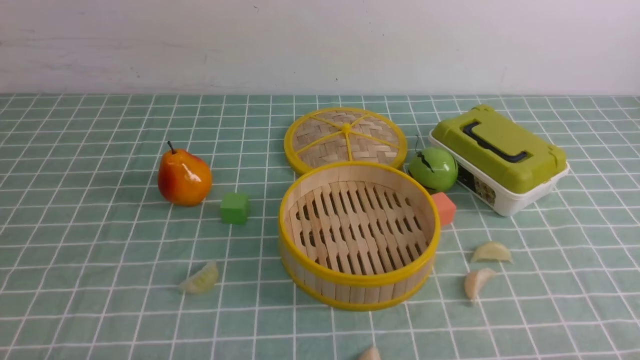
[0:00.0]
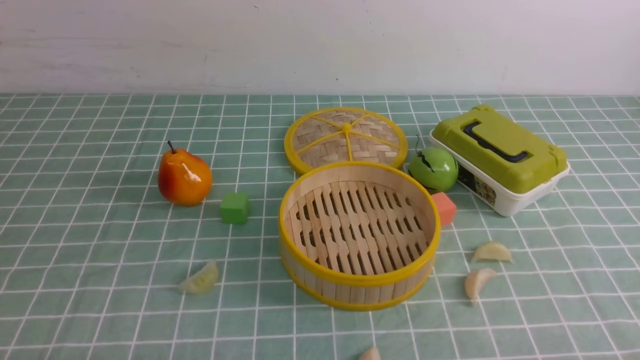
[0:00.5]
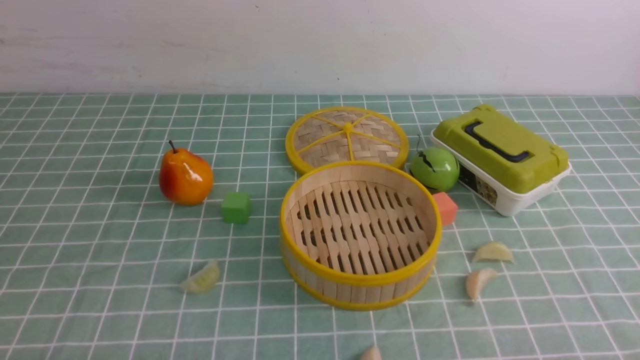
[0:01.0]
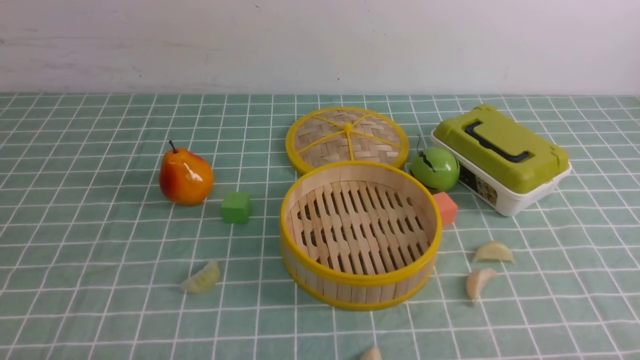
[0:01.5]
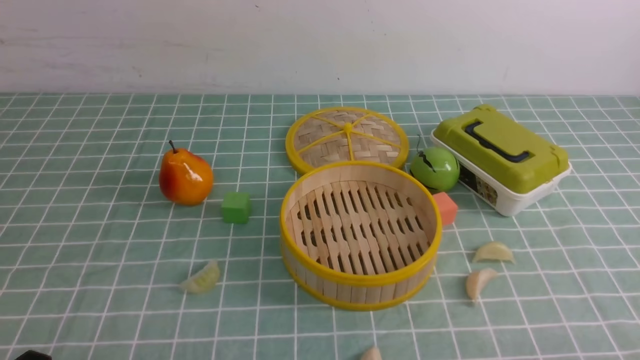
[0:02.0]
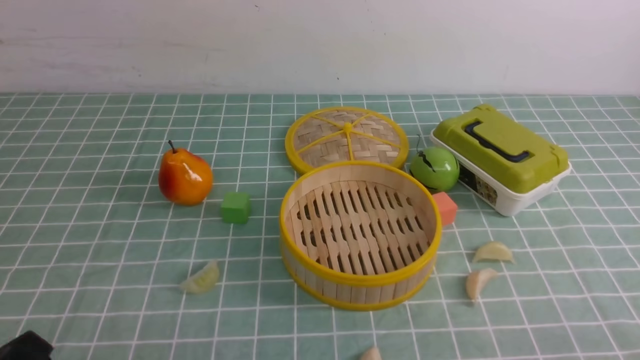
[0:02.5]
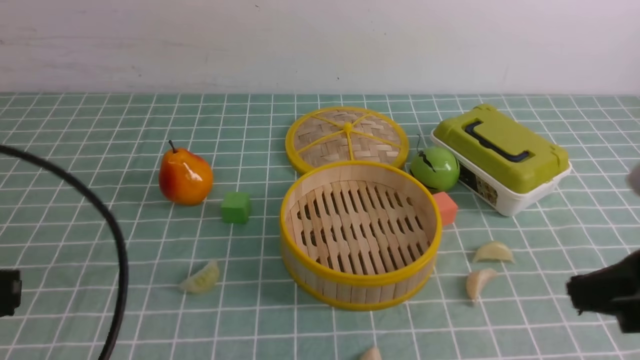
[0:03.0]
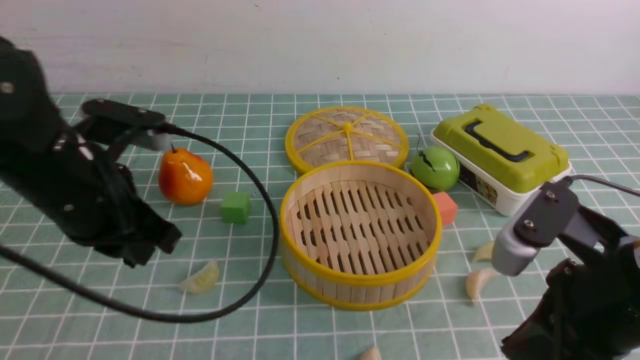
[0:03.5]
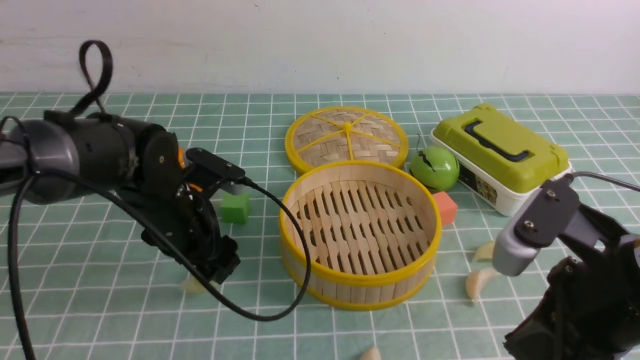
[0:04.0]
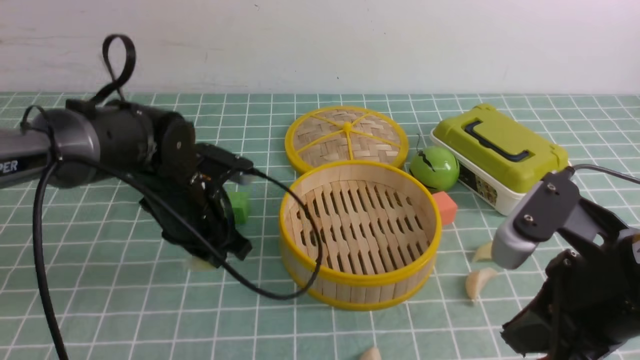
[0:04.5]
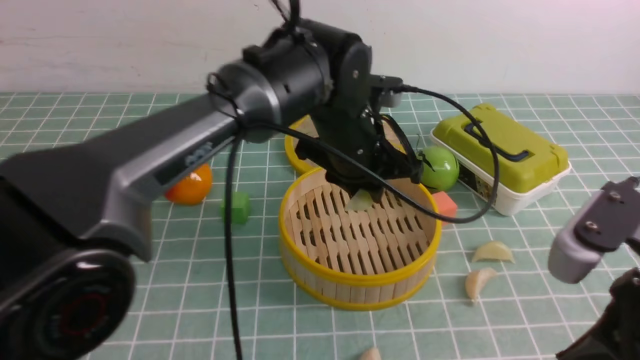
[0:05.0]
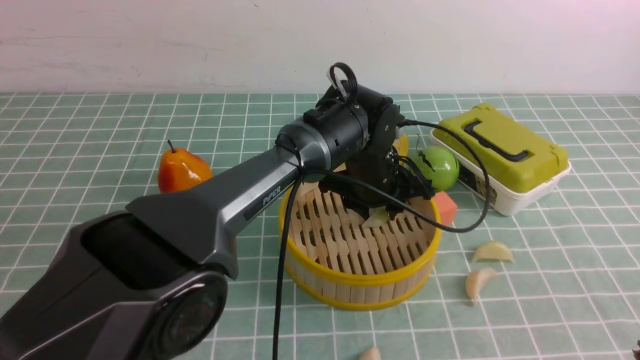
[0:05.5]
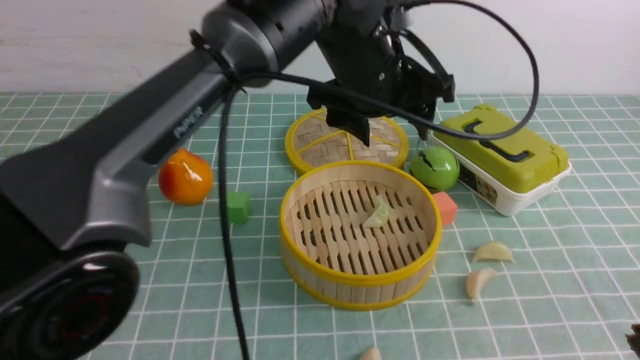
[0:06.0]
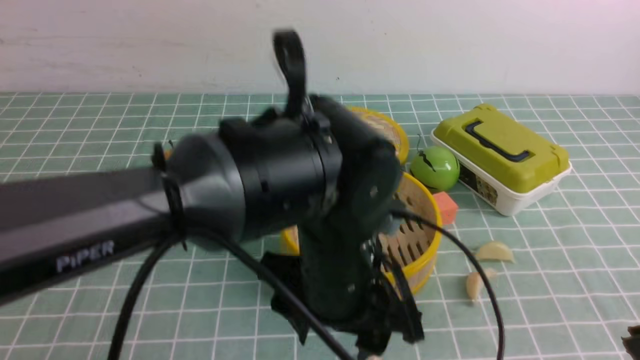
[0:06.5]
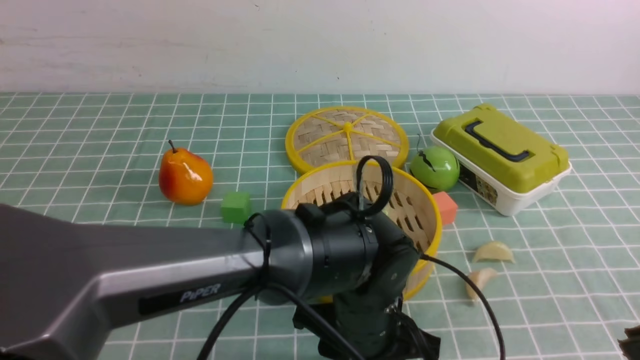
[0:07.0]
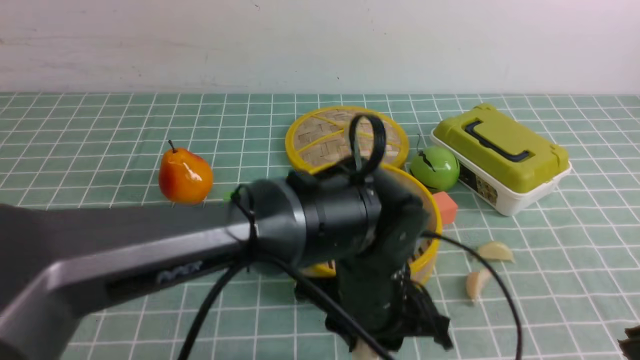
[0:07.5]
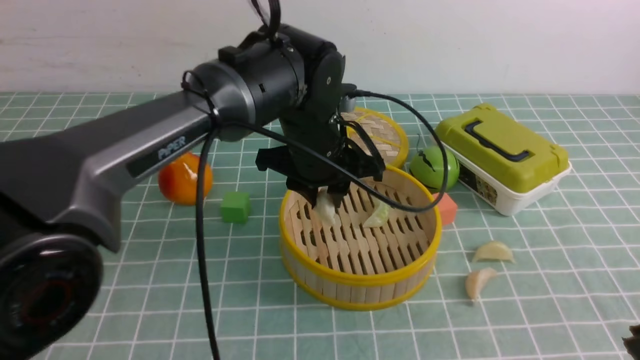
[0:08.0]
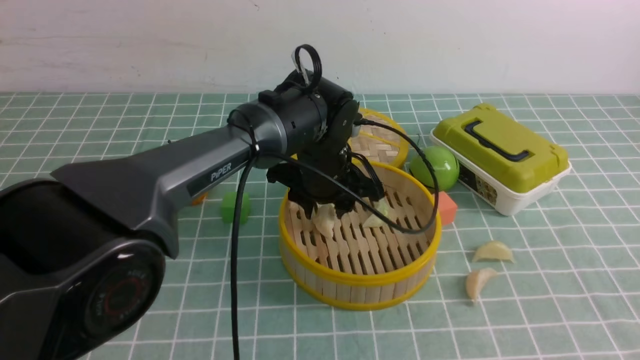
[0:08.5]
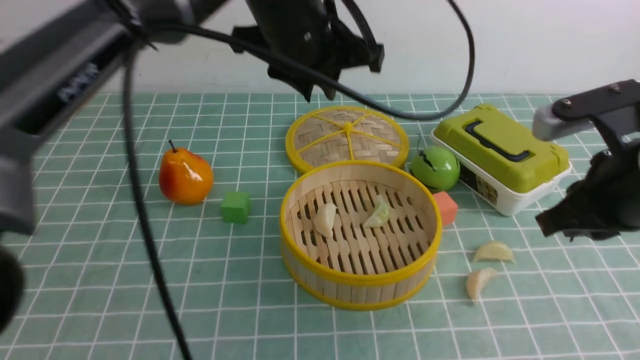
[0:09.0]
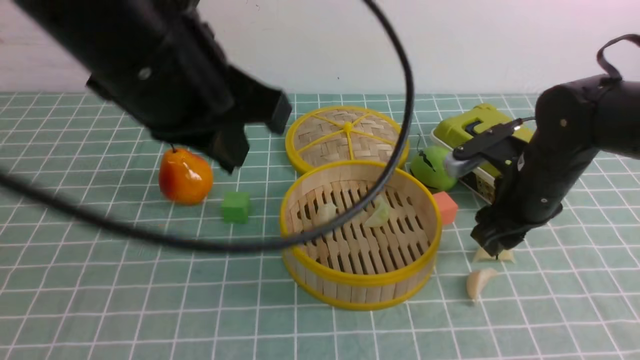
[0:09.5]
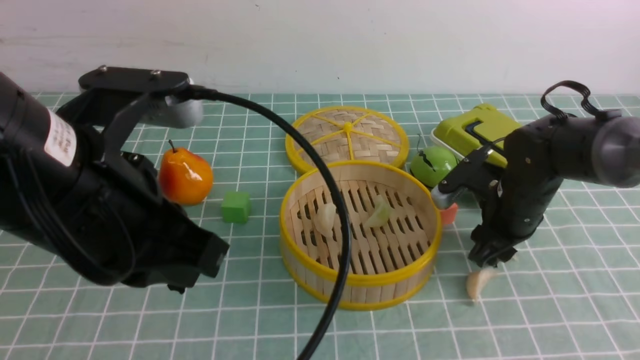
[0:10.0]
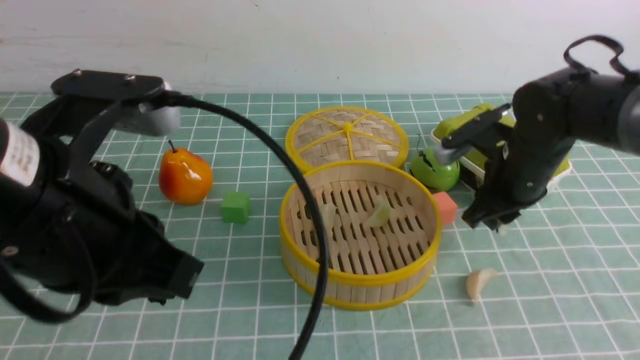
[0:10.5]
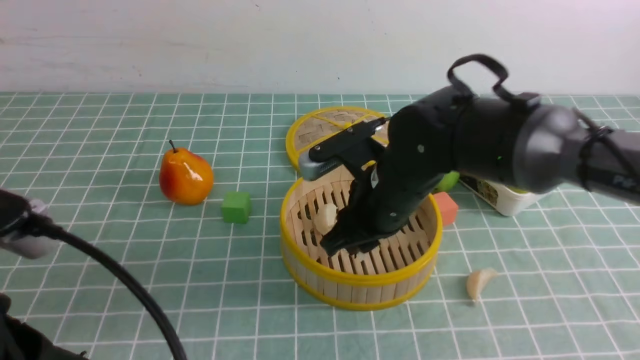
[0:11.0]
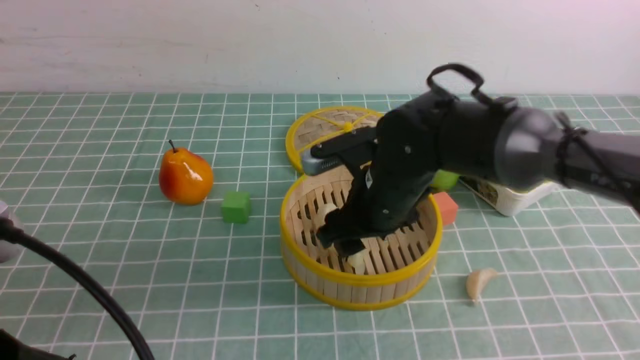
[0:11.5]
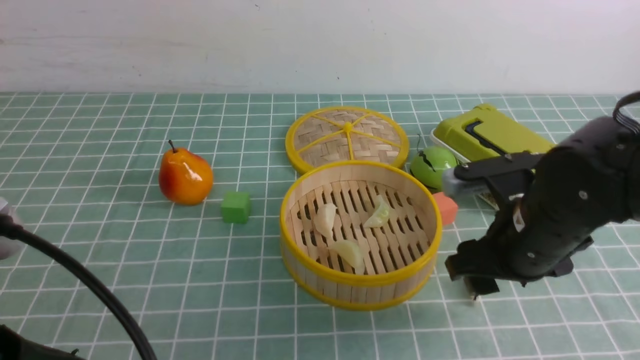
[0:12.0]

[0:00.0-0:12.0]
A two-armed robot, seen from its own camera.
Task of the whole recording: put the dumplings into the steamer on the table with the blue tablecloth.
Step, 0:00.0 to 0:04.5: use the left arm to grab a dumpling.
Step, 0:05.0 to 0:05.5: use the left arm to put the dumpling into the steamer.
Step, 0:06.0 to 0:07.5: use the left arm to grab a dumpling.
Step, 0:08.0 to 0:08.5: use the left arm to put the dumpling into the steamer.
Step, 0:09.0 to 0:10.5: use the right arm to grab a dumpling.
Step, 0:11.0 to 0:11.5: use the right arm to put the dumpling into the steamer.
0:02.0 to 0:04.0: The right gripper travels forward, upward and to the left by about 20 cm, and closes up; the left gripper is displaced forward by roughly 30 cm, and opens up.
0:04.0 to 0:06.0: The right gripper travels backward and upward by about 10 cm, while the left gripper heads to the right and upward, covering about 25 cm, and closes, then reopens.
0:06.0 to 0:08.0: The left gripper shifts some 10 cm downward, and closes up.
0:08.0 to 0:10.0: The left gripper moves backward, to the left and upward, approximately 30 cm, and closes up. The right gripper heads forward and downward, covering approximately 35 cm, and opens.
0:10.0 to 0:12.0: The right gripper shifts roughly 10 cm backward and upward, and travels to the left and back again, about 15 cm each way. Meanwhile the left gripper shifts about 10 cm backward and to the left.

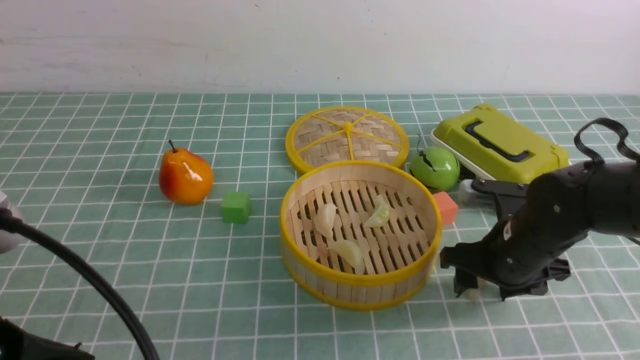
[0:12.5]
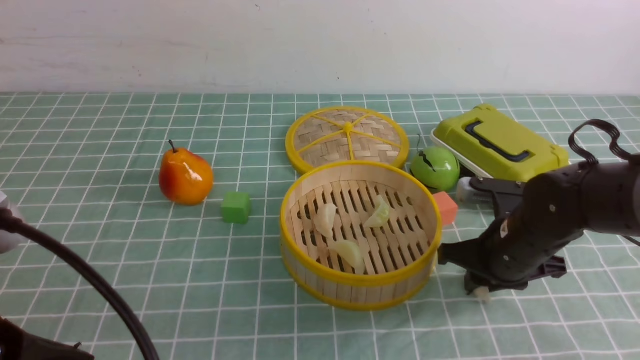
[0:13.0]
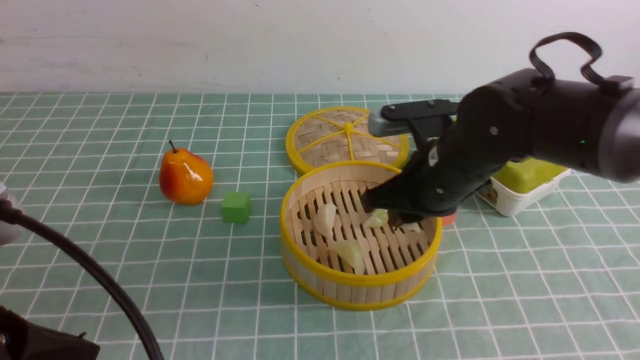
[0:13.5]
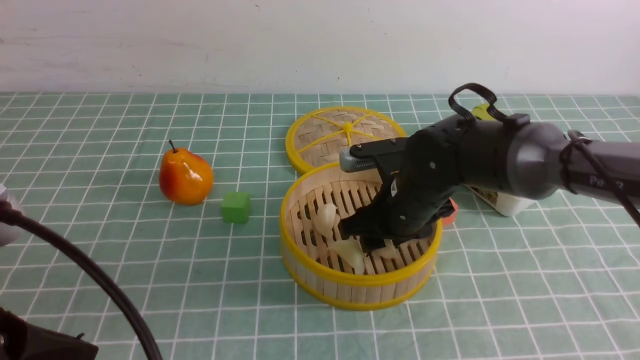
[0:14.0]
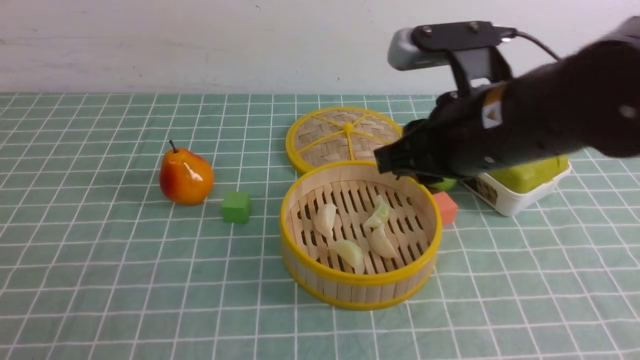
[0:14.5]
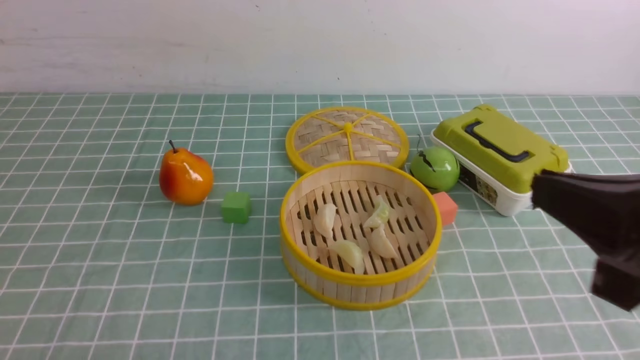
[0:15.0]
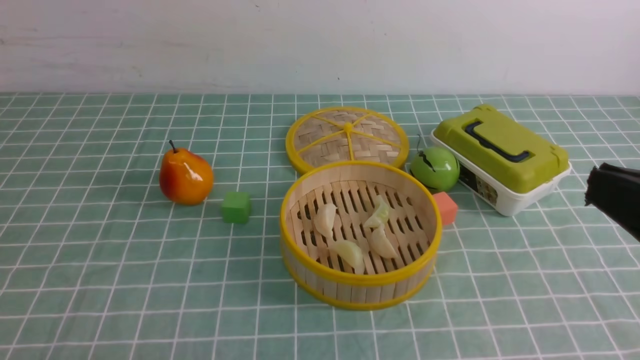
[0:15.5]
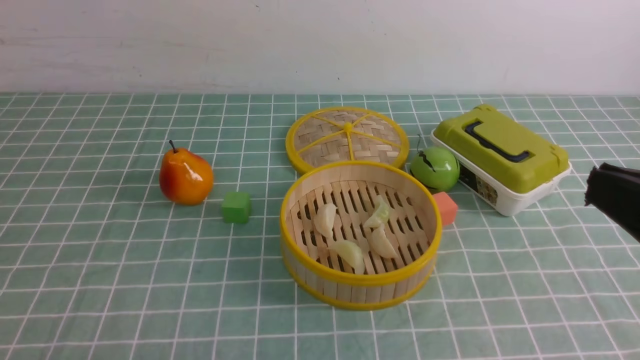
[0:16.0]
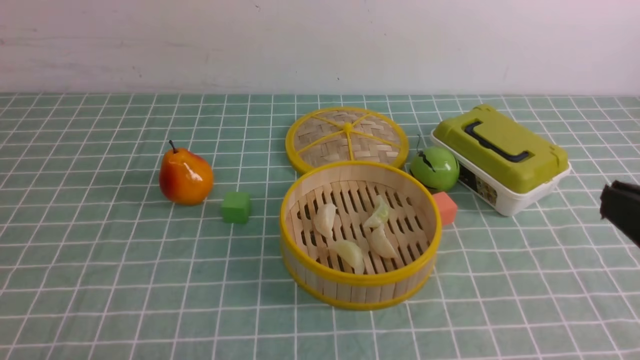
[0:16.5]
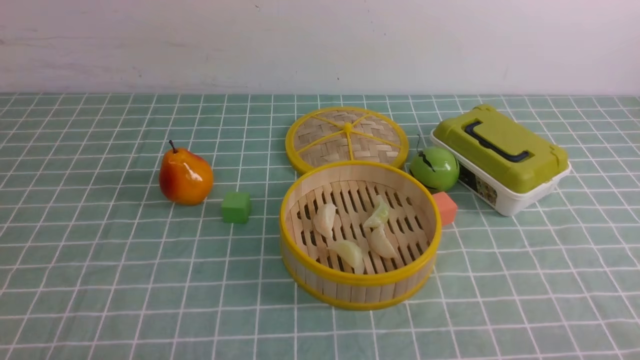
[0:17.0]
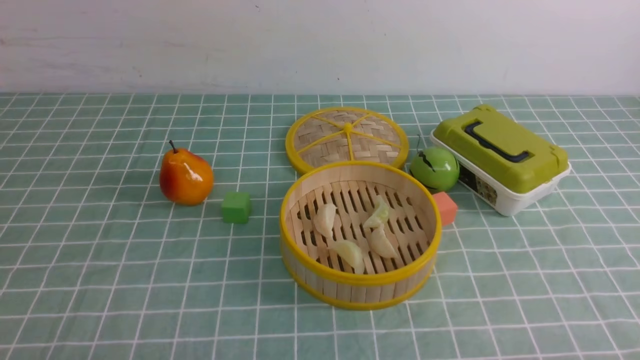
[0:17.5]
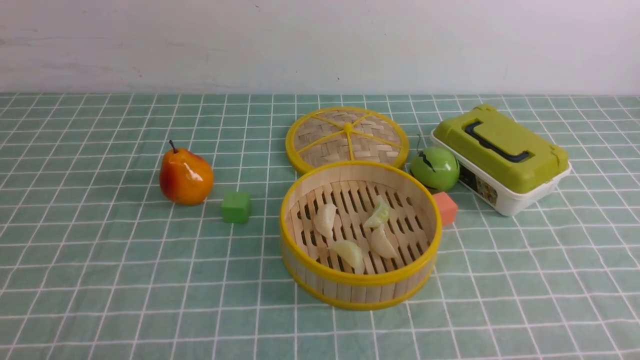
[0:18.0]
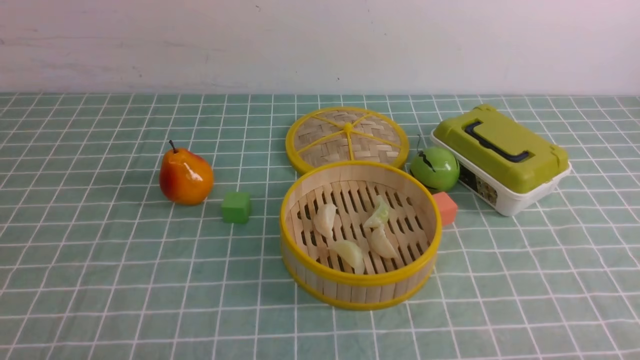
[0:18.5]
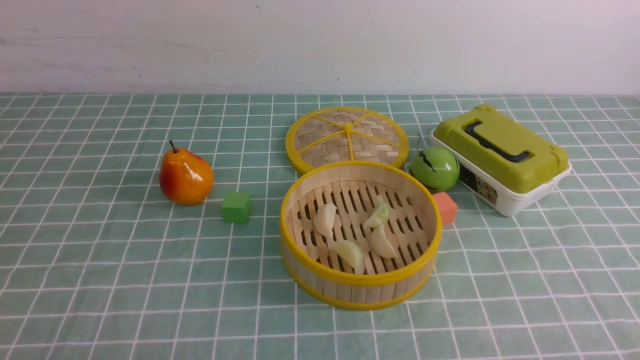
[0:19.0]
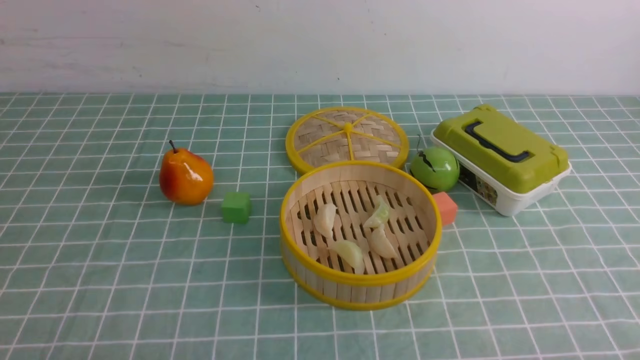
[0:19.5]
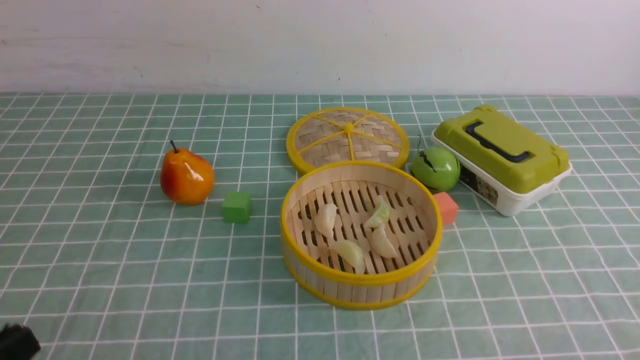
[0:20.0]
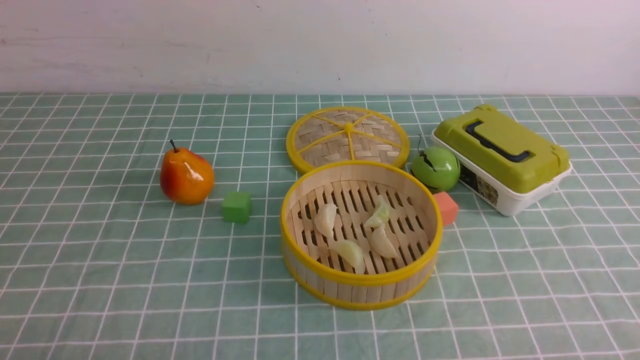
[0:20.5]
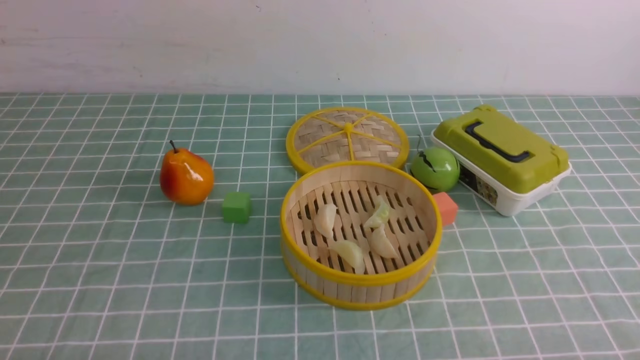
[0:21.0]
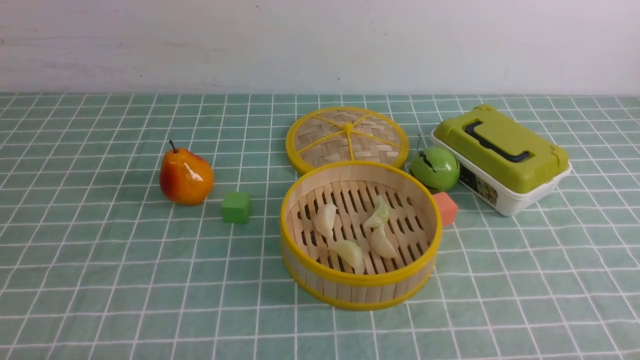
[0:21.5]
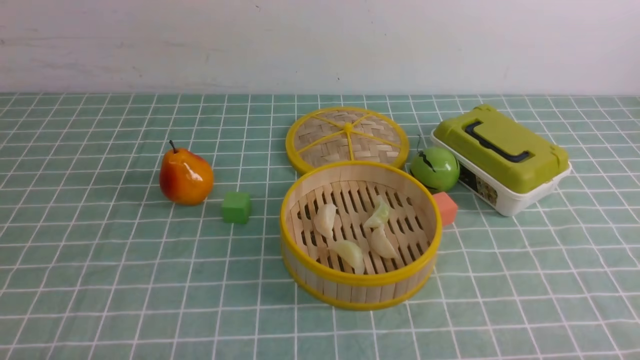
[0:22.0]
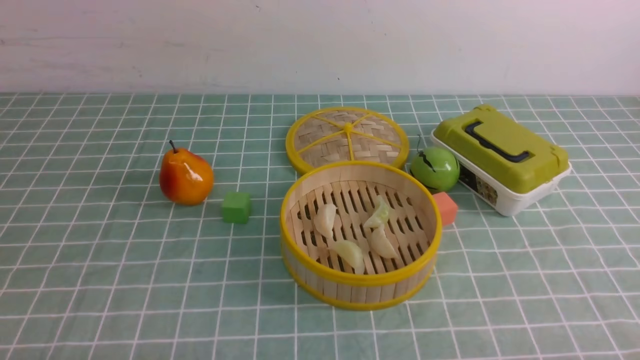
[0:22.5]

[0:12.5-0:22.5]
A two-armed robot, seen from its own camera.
Task of the whole recording: put the dumplings into the steamer on the table with the blue tablecloth.
Step, 0:13.5 to 0:14.0: use the right arm to put the dumpling into the steamer.
0:12.5 to 0:14.5: The left gripper changes place by some 5 cm; the right gripper goes approximately 20 cm upward and to the left, and closes up.
0:14.5 to 0:16.5: The left gripper travels downward by some 5 cm; the right gripper heads backward and to the right, covering some 20 cm.
0:16.5 to 0:18.5: The right gripper shifts roughly 15 cm downward.
